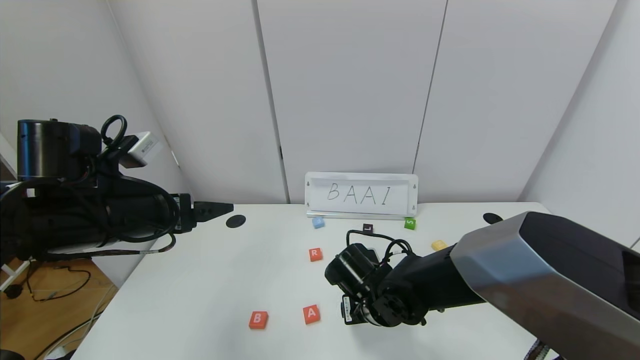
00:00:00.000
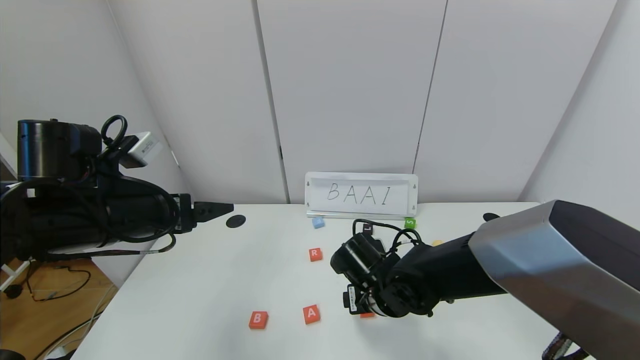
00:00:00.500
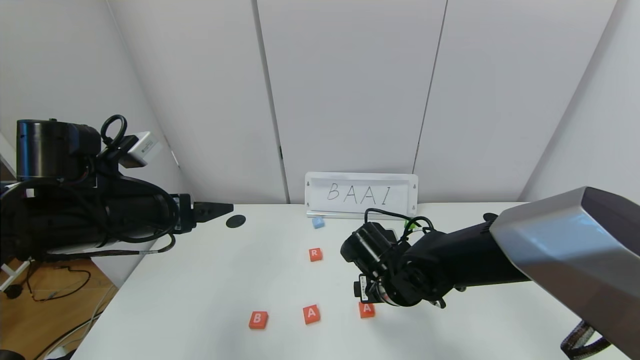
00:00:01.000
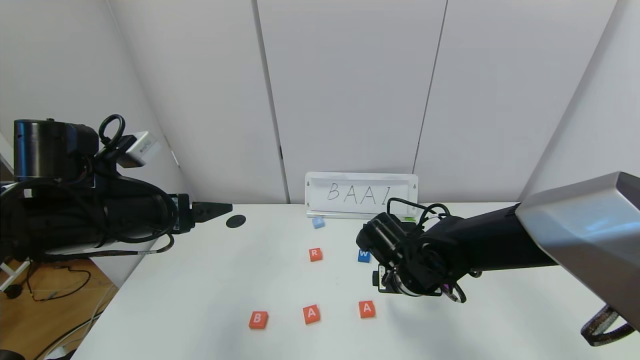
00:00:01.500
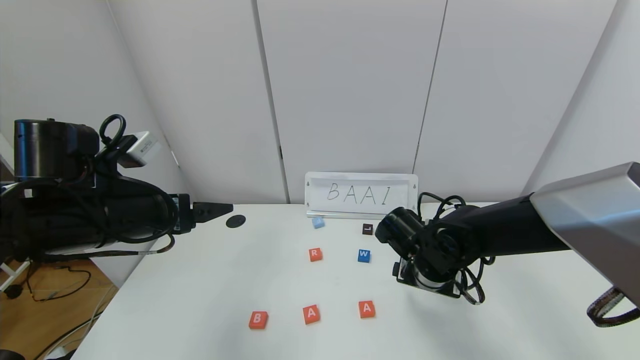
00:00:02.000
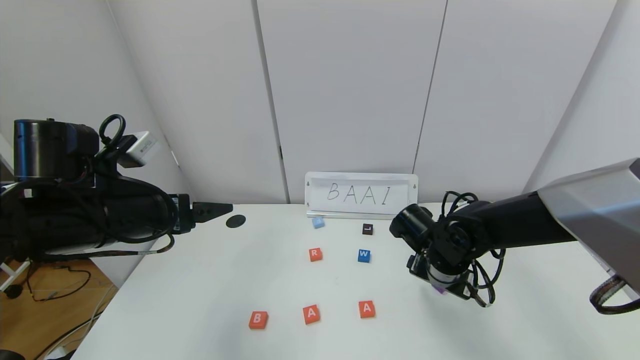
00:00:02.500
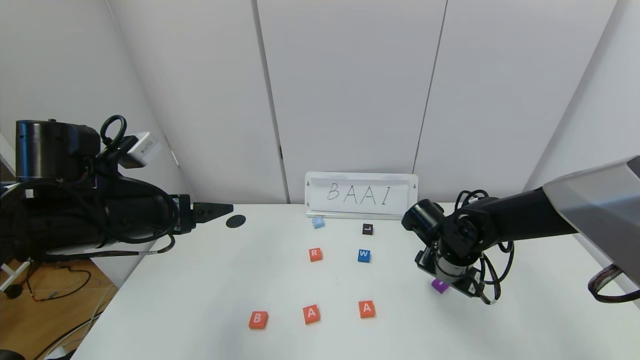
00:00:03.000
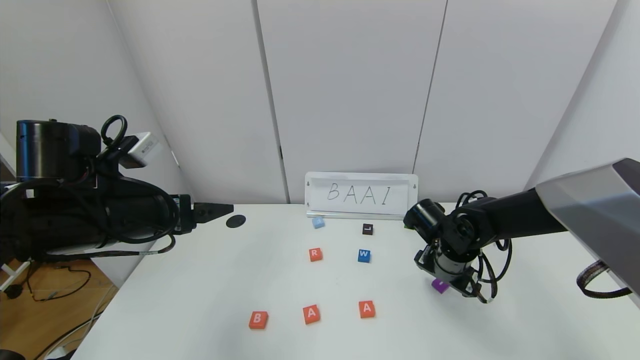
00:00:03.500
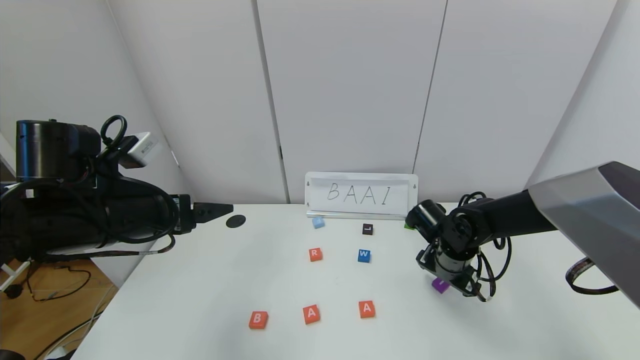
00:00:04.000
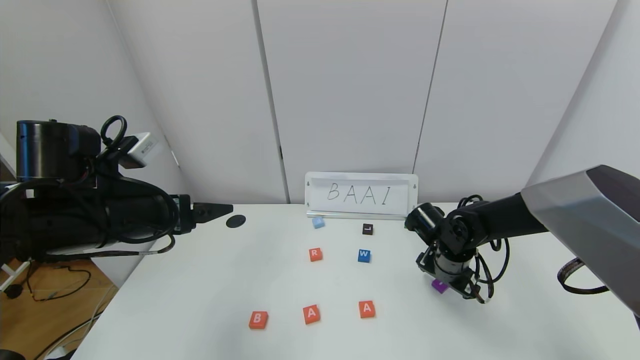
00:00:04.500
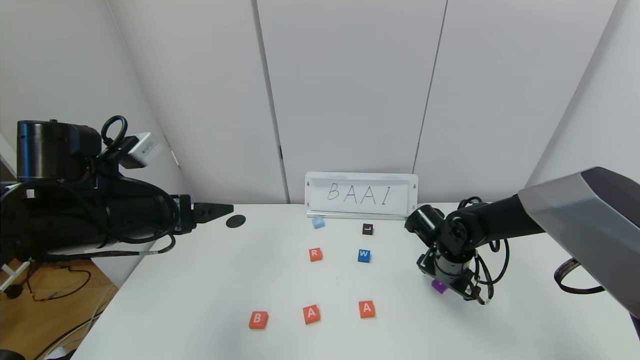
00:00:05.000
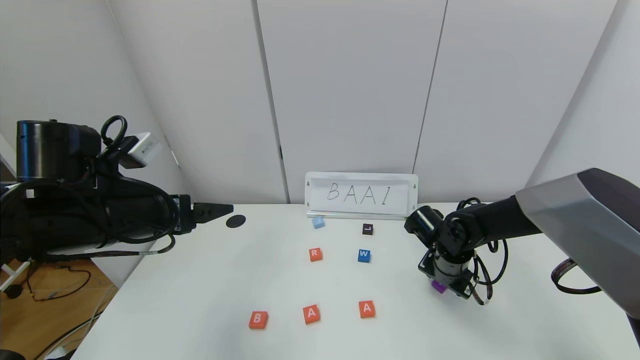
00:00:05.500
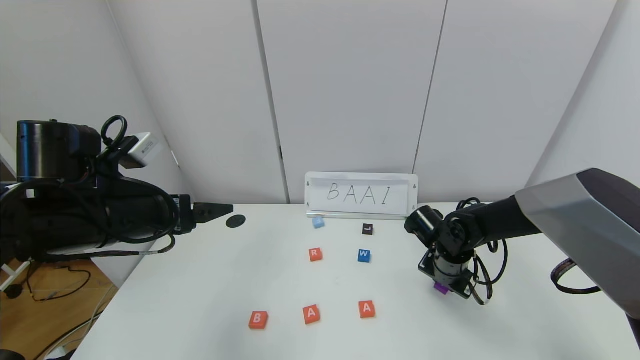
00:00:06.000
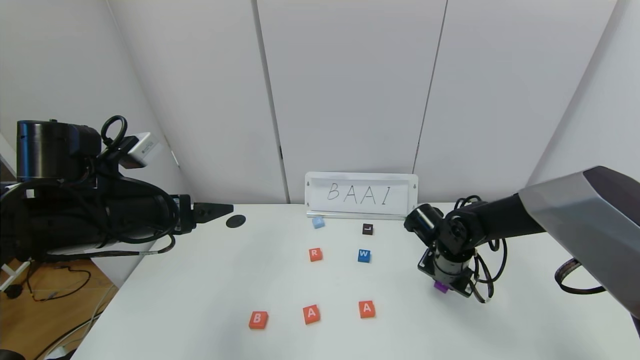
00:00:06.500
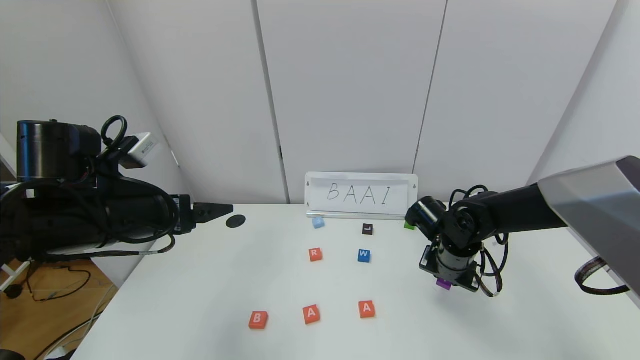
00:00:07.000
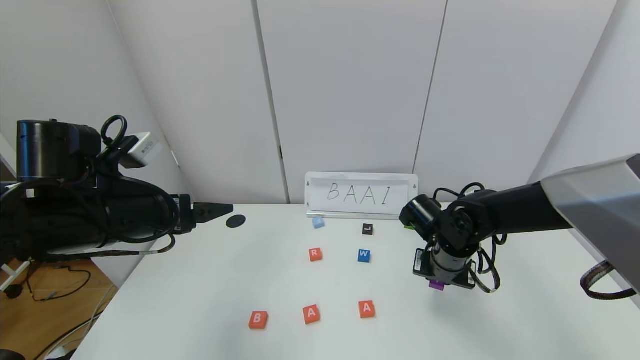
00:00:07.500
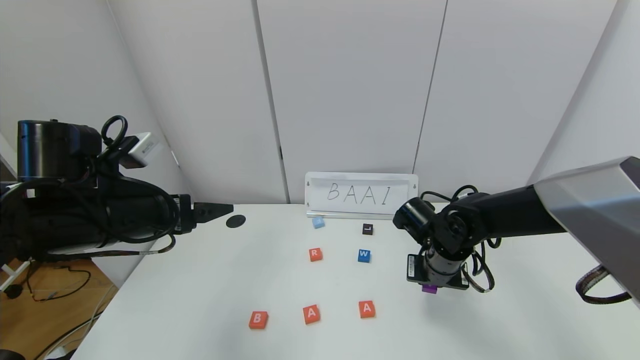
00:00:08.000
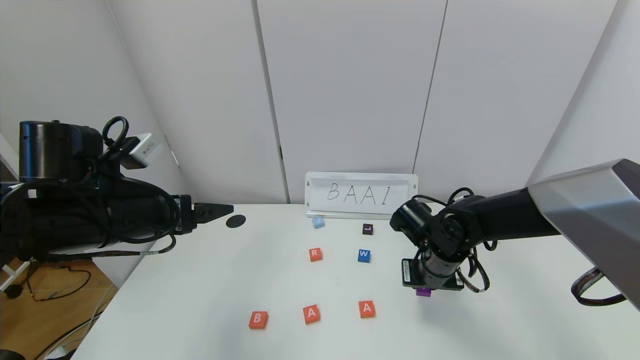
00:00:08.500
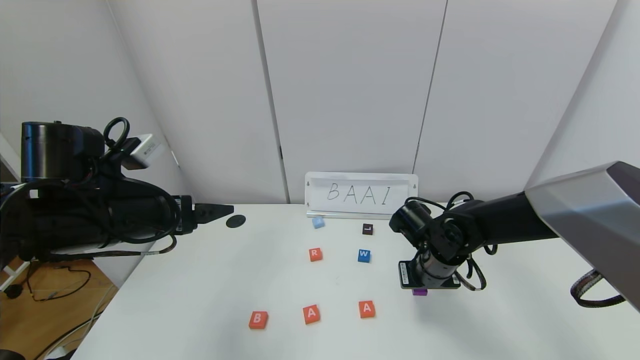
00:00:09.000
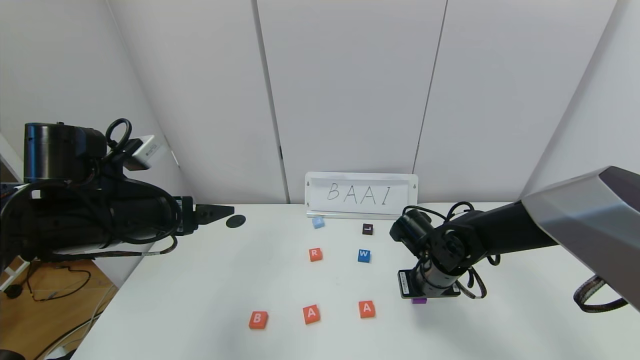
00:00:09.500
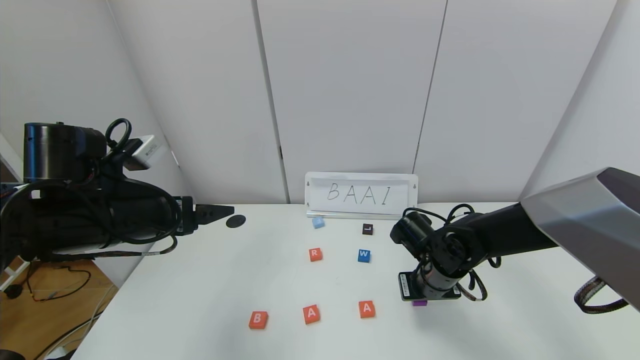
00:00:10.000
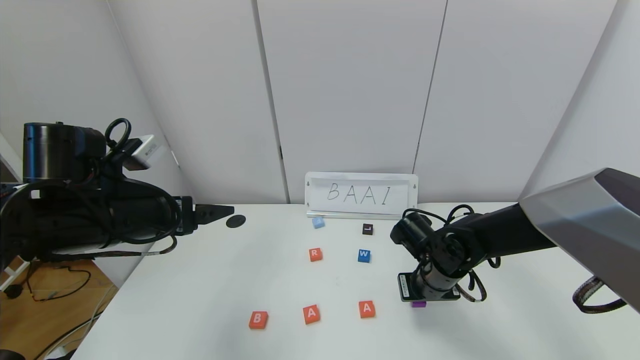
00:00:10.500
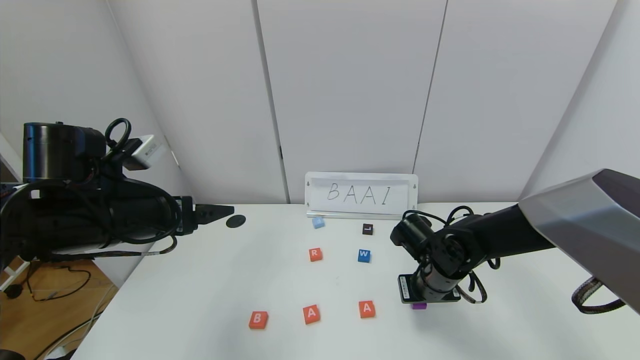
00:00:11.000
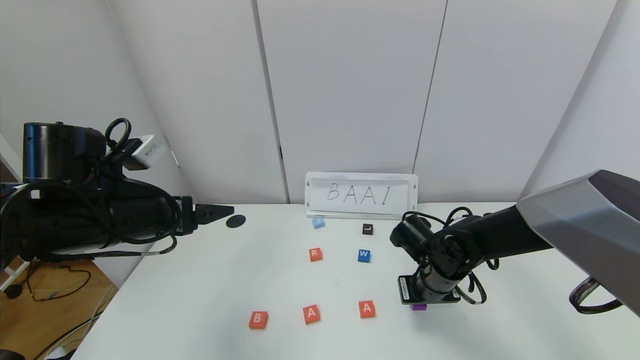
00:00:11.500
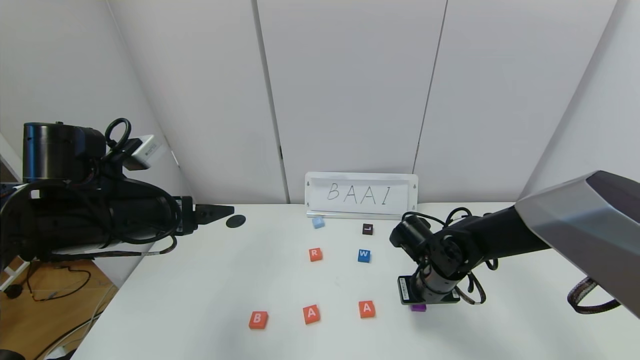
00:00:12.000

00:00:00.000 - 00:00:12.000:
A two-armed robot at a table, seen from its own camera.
Task of the whole recording: use the gripper to find blocks with the letters b, a, a, and i on the table and arrange them into BAAI, then find r and N and turn the arranged baai into brian.
00:00:00.000 - 00:00:02.000: The right gripper travels to the right and upward by some 10 cm.
00:00:02.000 - 00:00:04.000: The right gripper shifts approximately 5 cm to the right.
00:00:04.000 - 00:00:06.000: The right gripper closes.
00:00:06.000 - 00:00:08.000: The right gripper shifts by about 5 cm.
00:00:08.000 - 00:00:10.000: The grippers move only a little.
00:00:10.000 - 00:00:12.000: Both grippers stay about where they are.

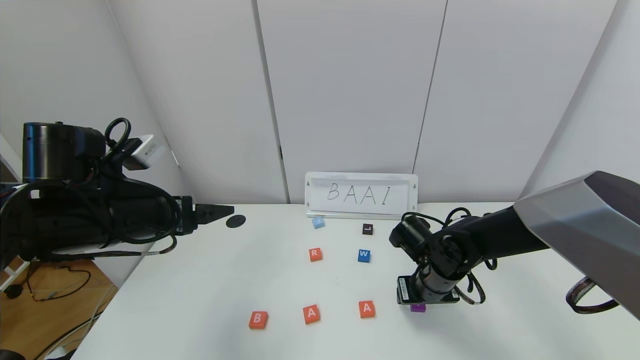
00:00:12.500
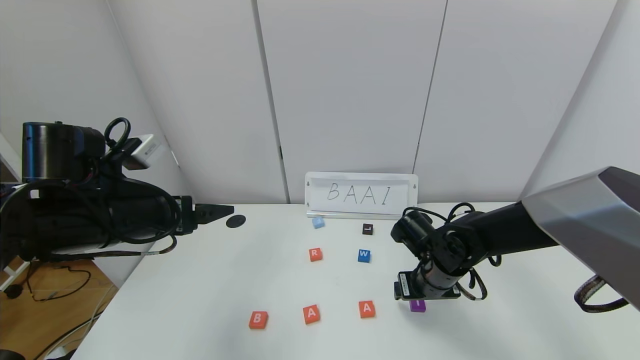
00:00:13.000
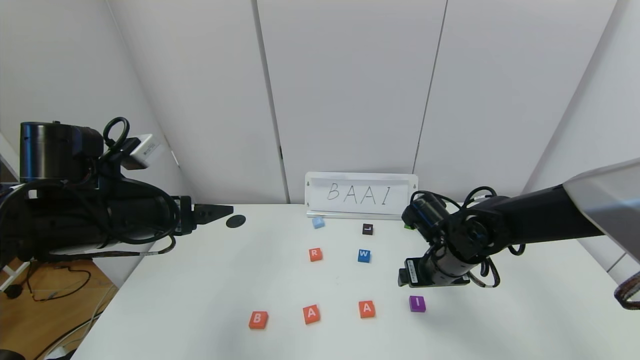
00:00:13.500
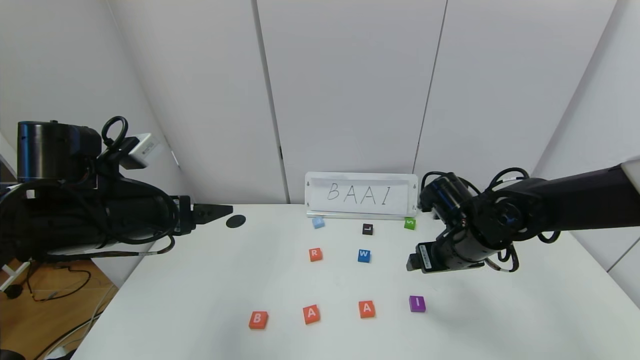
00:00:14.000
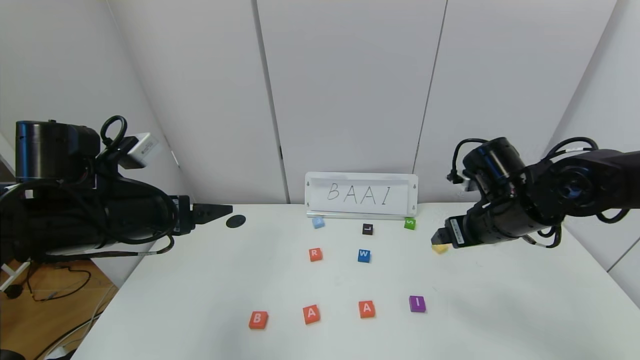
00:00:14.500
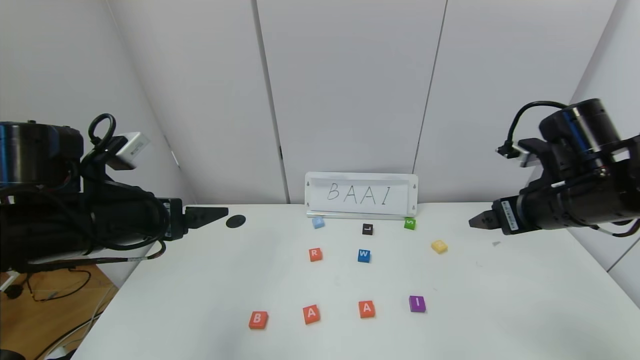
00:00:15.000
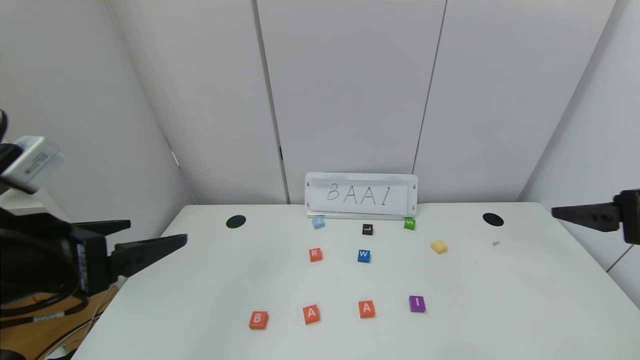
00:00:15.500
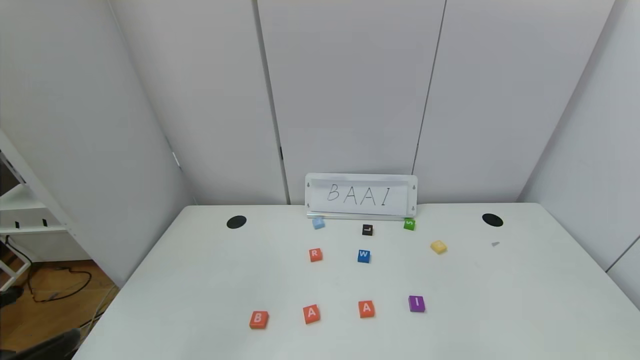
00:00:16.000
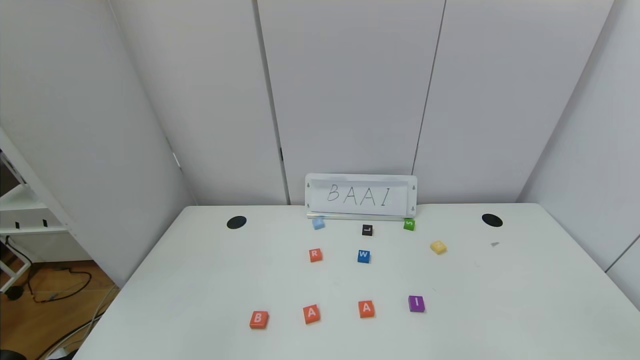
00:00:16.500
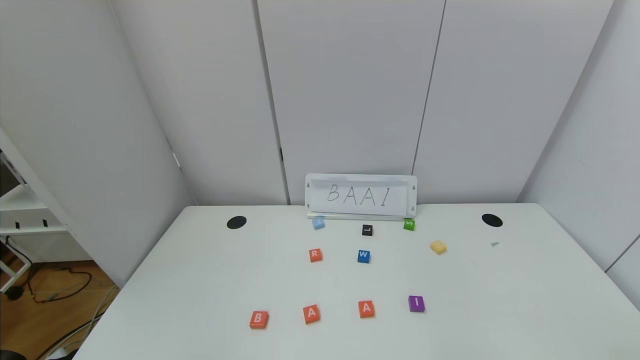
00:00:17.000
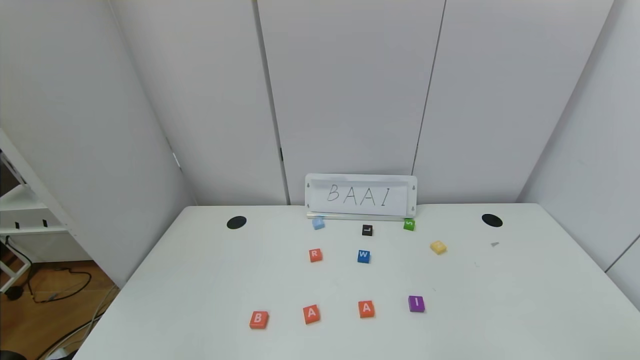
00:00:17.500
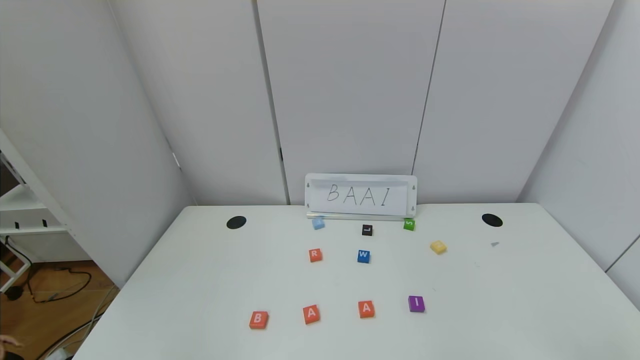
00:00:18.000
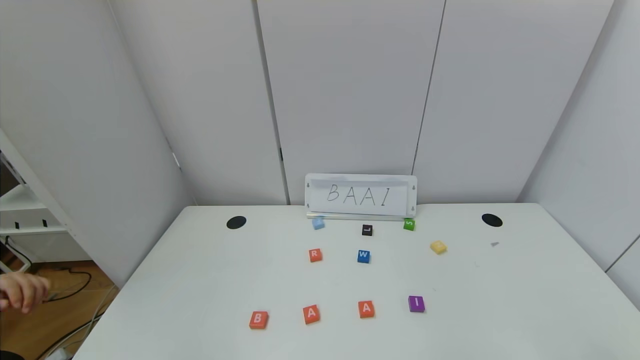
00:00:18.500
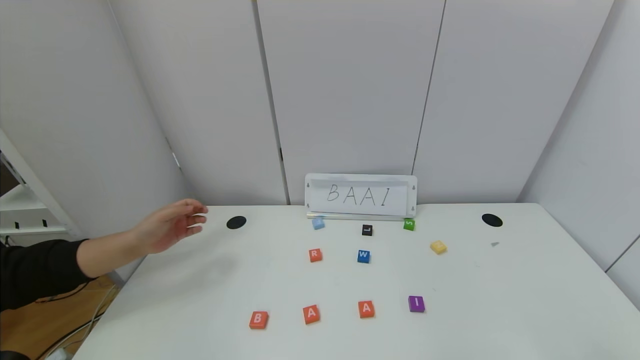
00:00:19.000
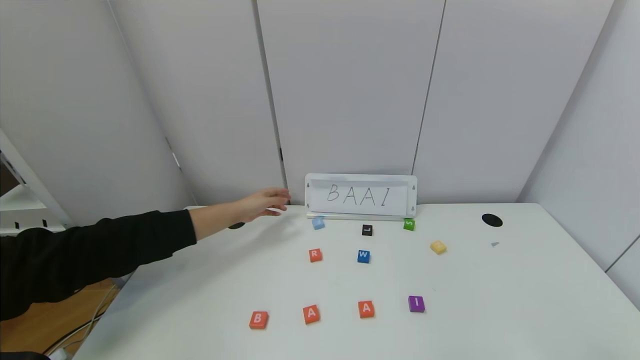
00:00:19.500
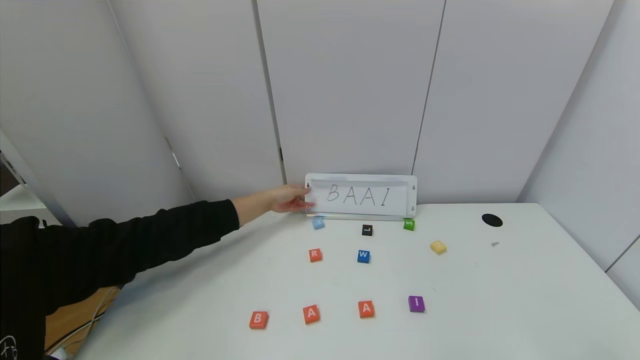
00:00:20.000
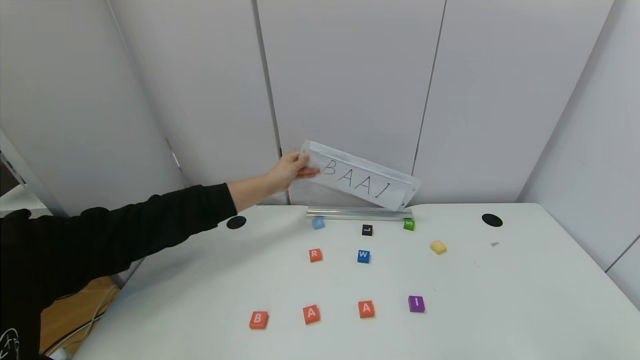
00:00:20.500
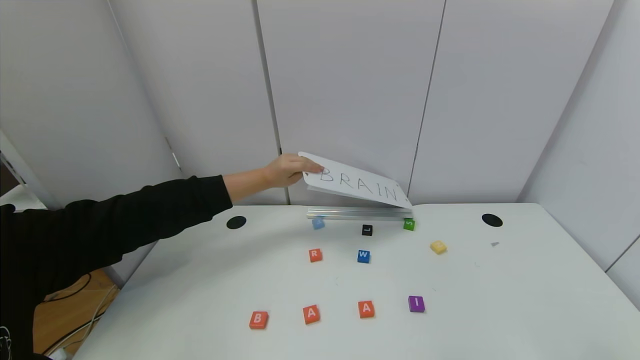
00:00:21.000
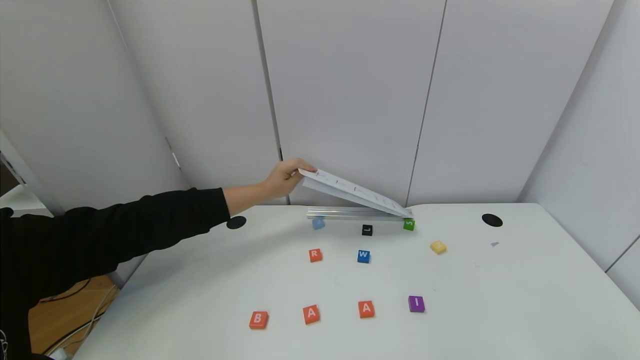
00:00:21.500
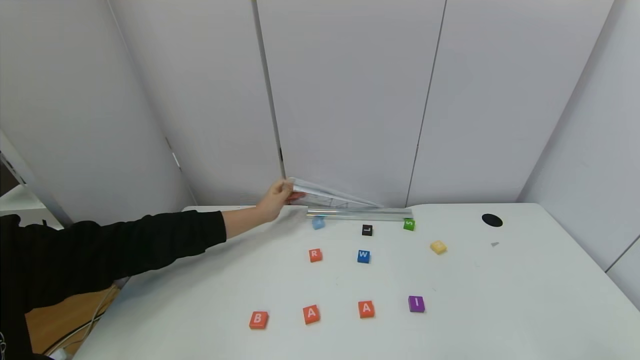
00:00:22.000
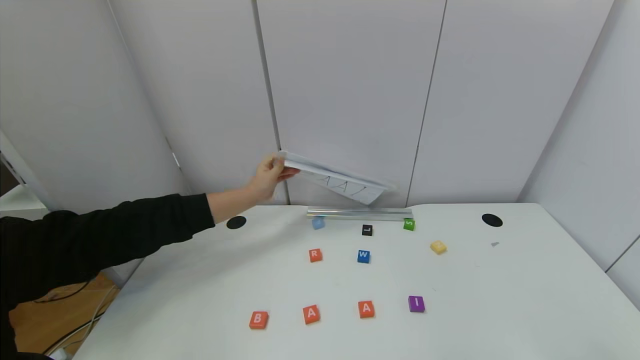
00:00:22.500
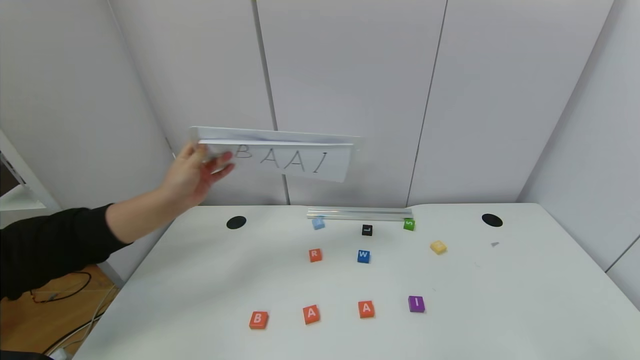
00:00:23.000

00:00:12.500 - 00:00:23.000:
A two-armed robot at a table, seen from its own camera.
Task of the whole recording: use the gripper to find blocks with the letters b, a, a, and i on the table and arrange them into BAAI, then find r and N and turn the arranged baai into brian.
00:00:12.500 - 00:00:14.500: The right gripper heads upward and to the right, covering approximately 15 cm.
00:00:14.500 - 00:00:16.500: The two grippers go some 35 cm backward.
00:00:16.500 - 00:00:19.000: The left gripper travels downward by roughly 10 cm.
00:00:19.000 - 00:00:23.000: Both grippers stay put.
